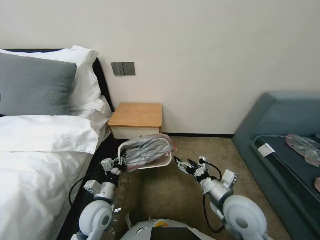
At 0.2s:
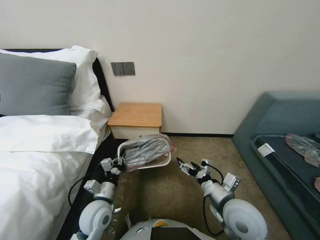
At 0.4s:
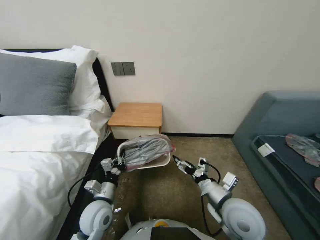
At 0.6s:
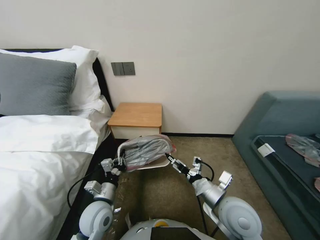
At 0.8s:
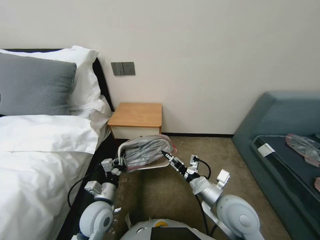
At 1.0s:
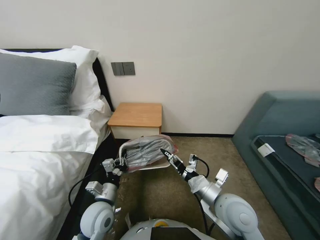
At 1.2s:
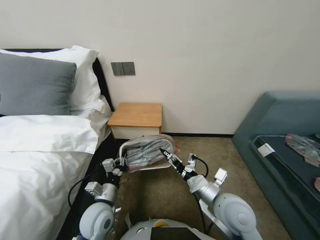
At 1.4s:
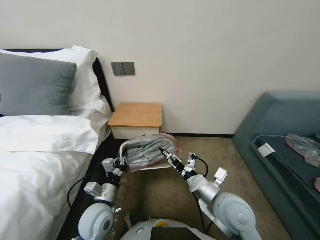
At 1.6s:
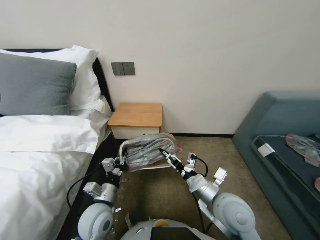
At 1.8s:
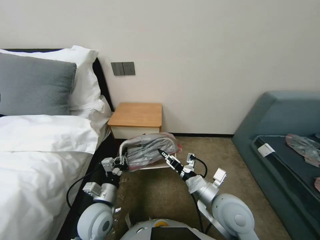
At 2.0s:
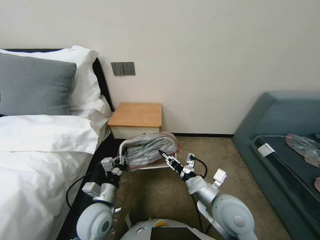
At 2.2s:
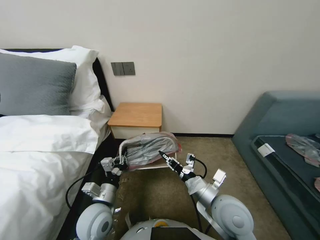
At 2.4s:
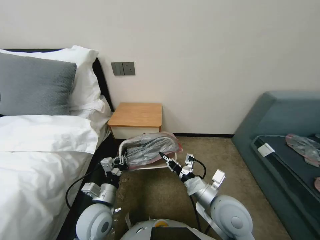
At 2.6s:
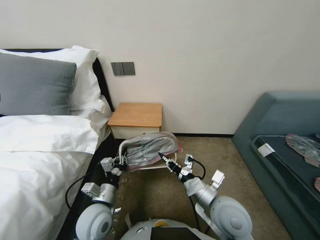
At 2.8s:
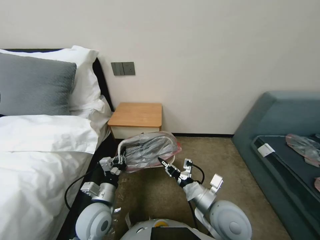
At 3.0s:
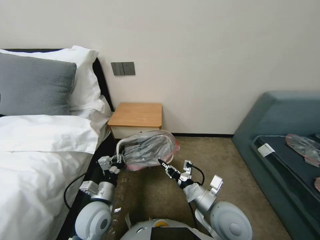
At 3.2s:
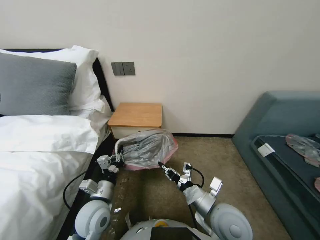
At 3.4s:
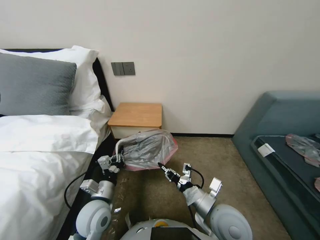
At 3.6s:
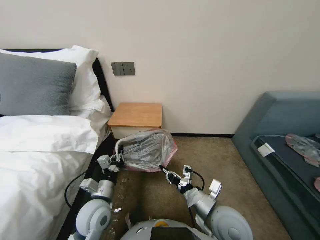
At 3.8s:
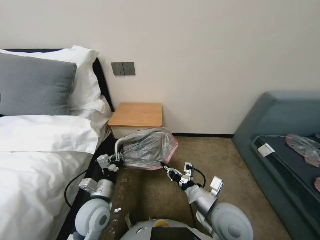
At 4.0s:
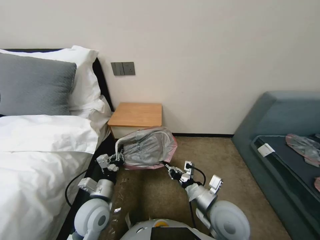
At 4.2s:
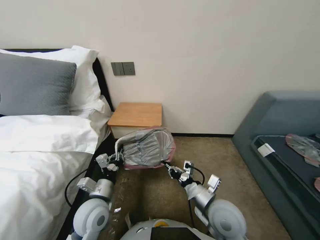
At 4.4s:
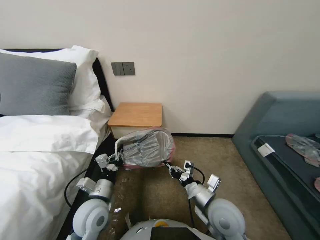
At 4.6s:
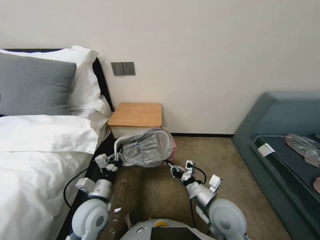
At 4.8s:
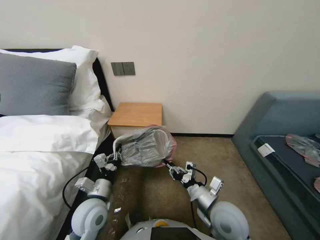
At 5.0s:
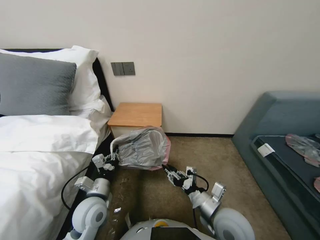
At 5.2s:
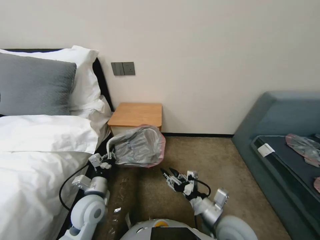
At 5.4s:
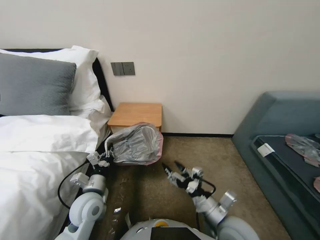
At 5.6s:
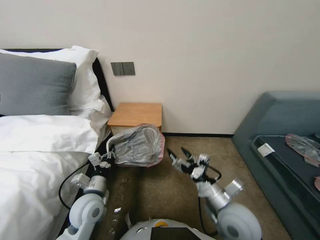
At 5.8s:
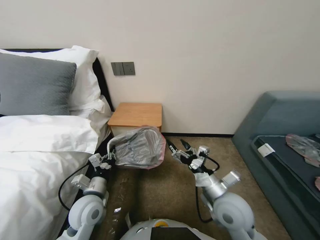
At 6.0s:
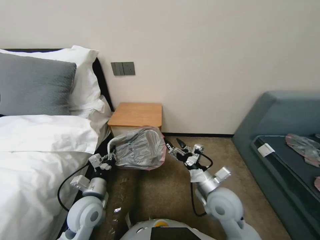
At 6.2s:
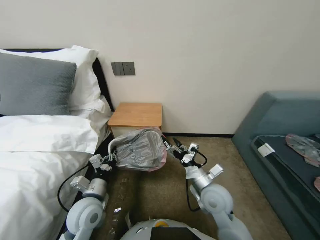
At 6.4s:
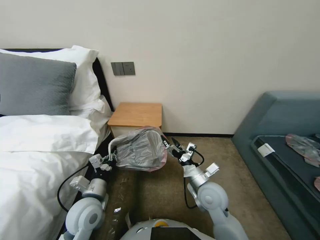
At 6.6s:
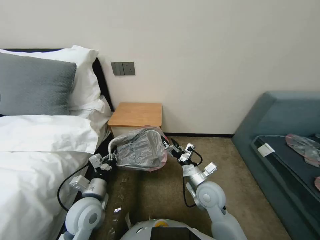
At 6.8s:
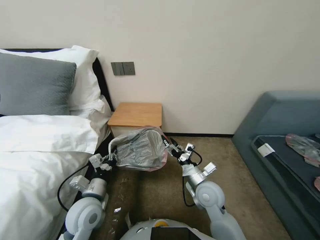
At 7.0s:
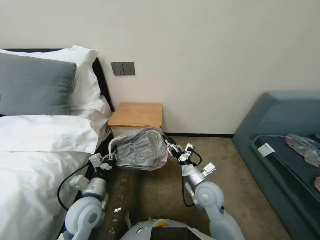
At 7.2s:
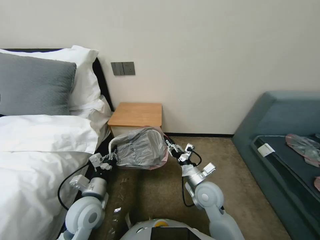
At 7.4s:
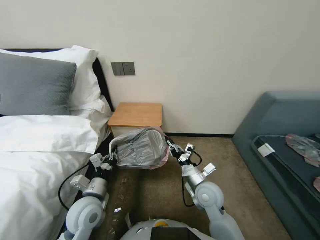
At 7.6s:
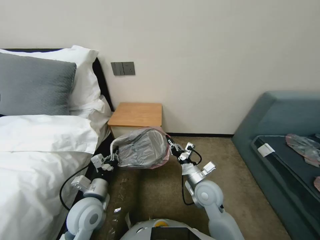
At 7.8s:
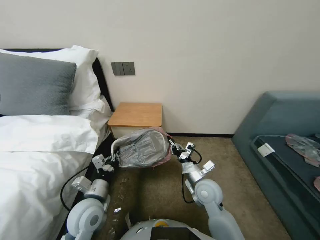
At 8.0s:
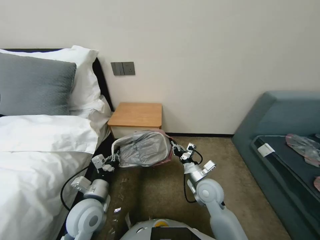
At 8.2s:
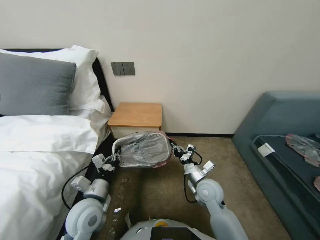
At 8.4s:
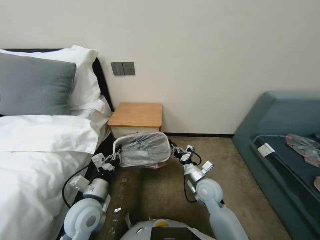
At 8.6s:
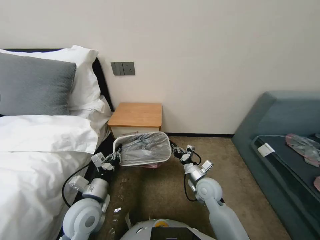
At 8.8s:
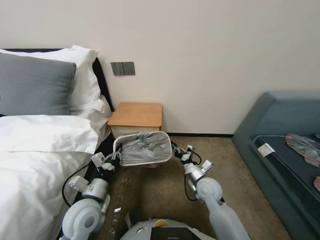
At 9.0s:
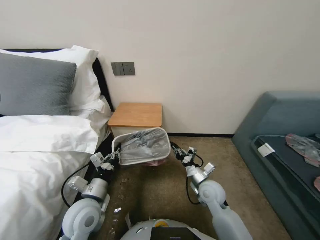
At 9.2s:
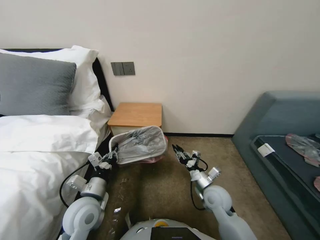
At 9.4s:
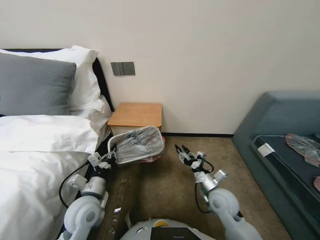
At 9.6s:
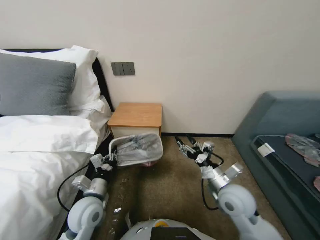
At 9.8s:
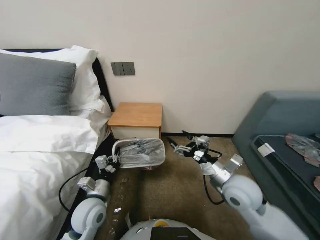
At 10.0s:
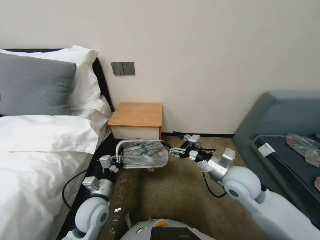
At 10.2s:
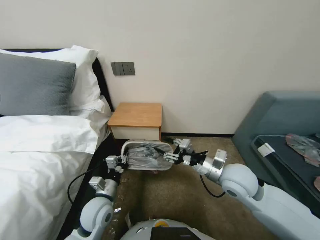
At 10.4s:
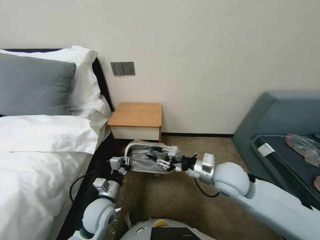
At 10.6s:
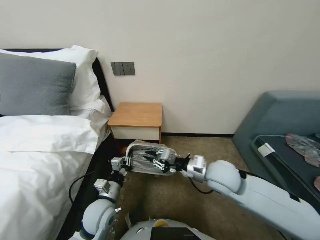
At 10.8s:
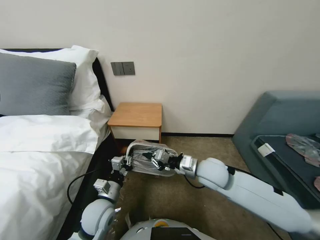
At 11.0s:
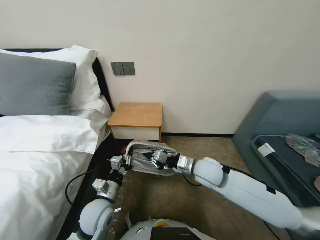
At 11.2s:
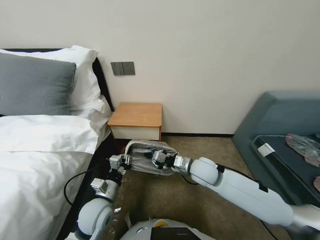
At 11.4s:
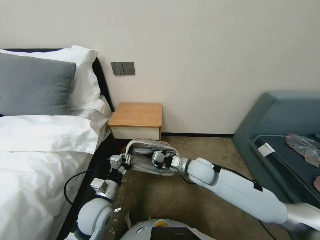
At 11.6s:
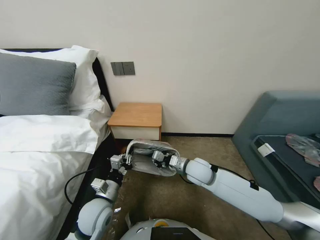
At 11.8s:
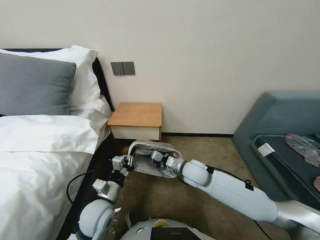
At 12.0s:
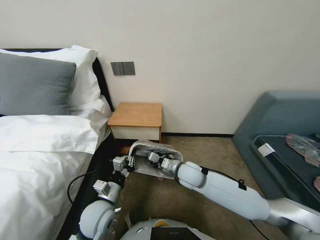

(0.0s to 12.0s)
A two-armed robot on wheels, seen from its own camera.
Task of the whole recording: Pick up the garbage bag from the table and place it over the trash can.
1.6s - 3.0s: The right gripper closes up.
3.0s - 4.4s: The grippers move only a little.
4.4s - 6.0s: The right gripper opens up.
6.0s - 7.6s: The right gripper moves roughly 5 cm, and closes up.
7.6s - 9.0s: The right gripper moves roughly 5 cm.
9.0s - 10.4s: The right gripper moves upward, approximately 15 cm, and opens up. Meanwhile the left gripper goes approximately 5 cm downward.
10.4s - 12.0s: The right gripper moves to the left, downward and forward, about 15 cm, and closes.

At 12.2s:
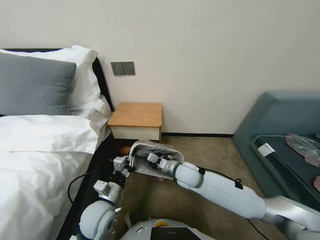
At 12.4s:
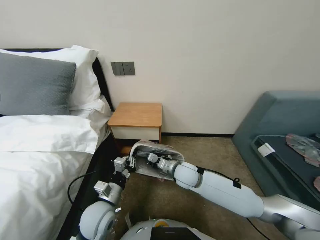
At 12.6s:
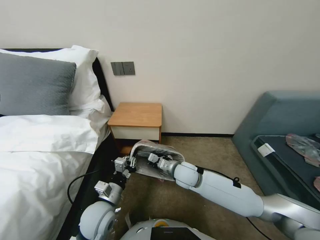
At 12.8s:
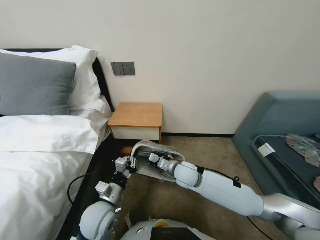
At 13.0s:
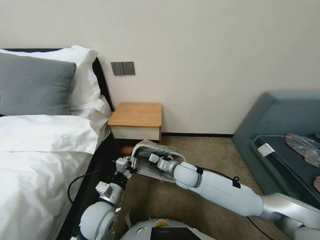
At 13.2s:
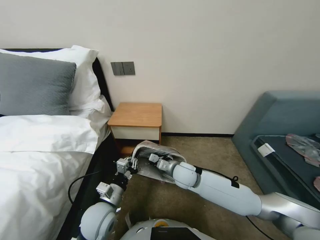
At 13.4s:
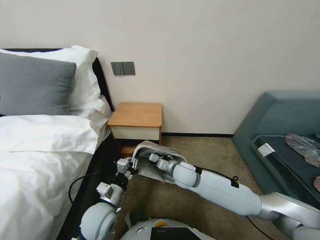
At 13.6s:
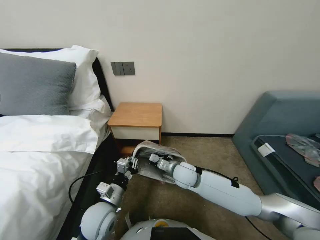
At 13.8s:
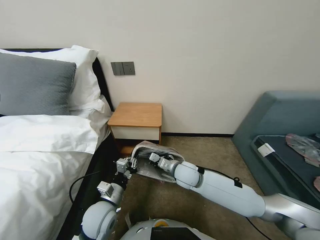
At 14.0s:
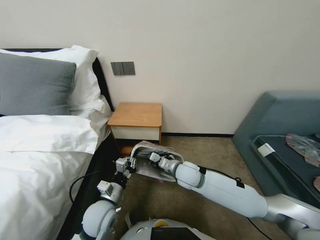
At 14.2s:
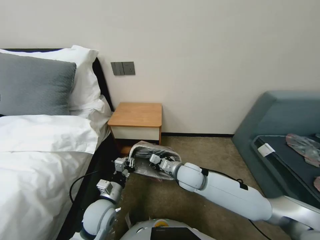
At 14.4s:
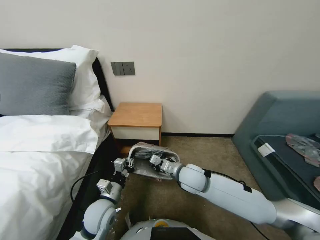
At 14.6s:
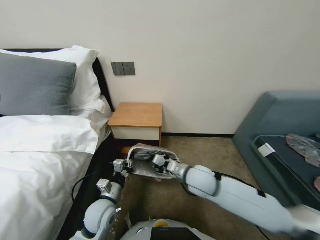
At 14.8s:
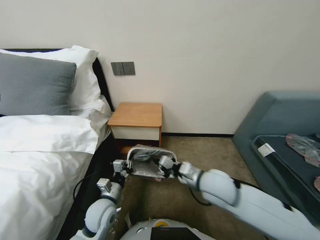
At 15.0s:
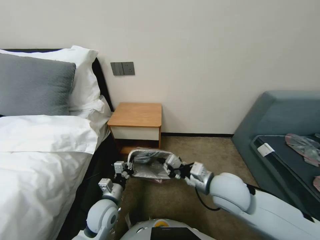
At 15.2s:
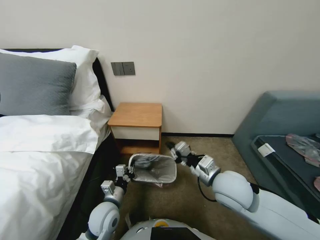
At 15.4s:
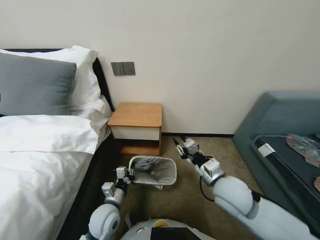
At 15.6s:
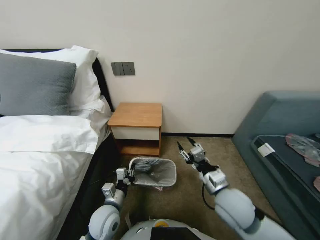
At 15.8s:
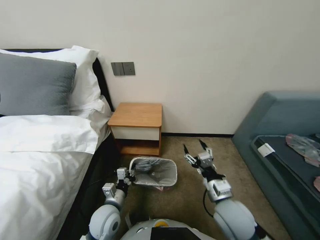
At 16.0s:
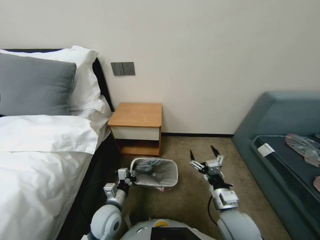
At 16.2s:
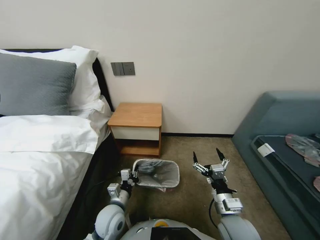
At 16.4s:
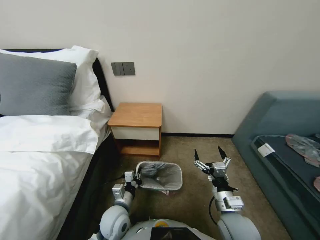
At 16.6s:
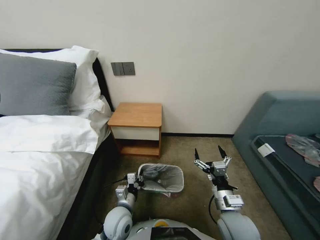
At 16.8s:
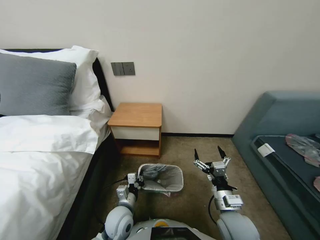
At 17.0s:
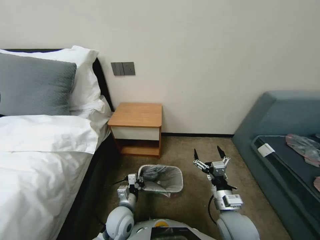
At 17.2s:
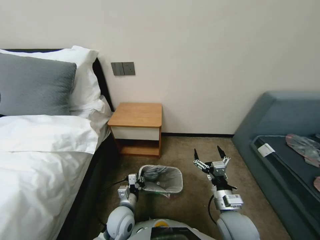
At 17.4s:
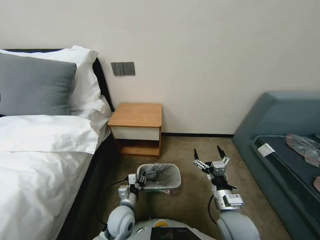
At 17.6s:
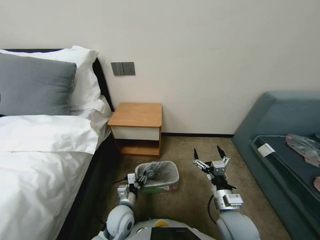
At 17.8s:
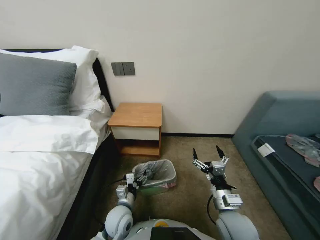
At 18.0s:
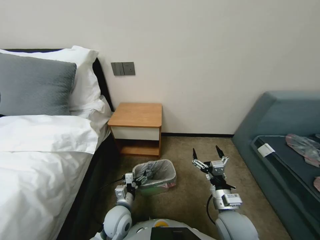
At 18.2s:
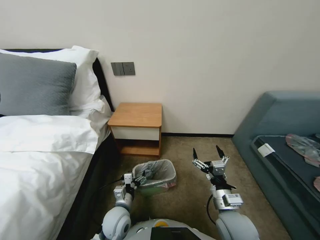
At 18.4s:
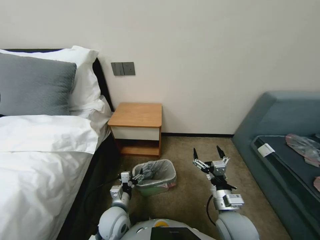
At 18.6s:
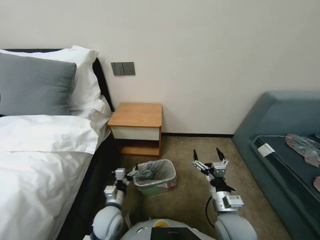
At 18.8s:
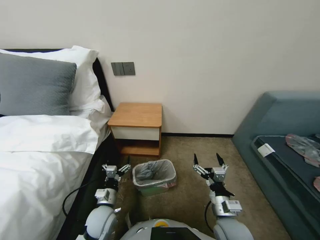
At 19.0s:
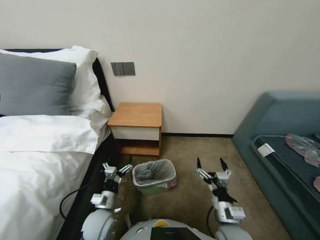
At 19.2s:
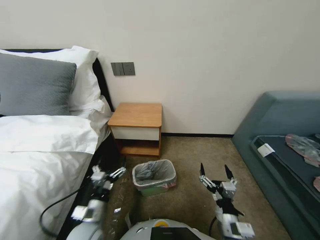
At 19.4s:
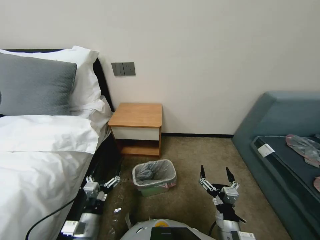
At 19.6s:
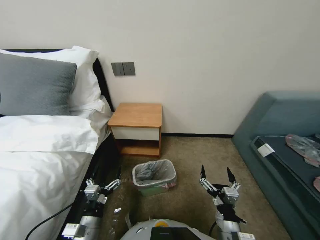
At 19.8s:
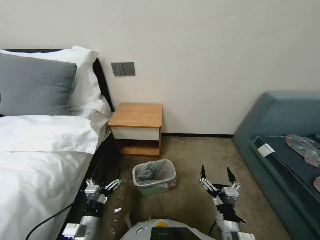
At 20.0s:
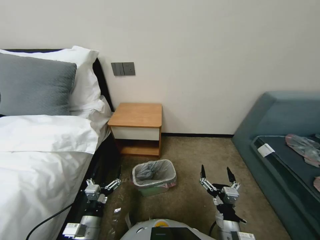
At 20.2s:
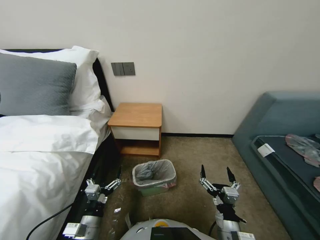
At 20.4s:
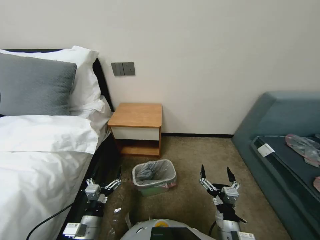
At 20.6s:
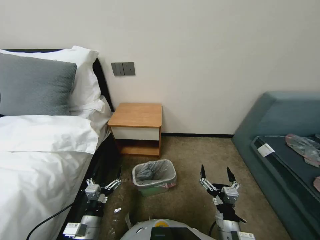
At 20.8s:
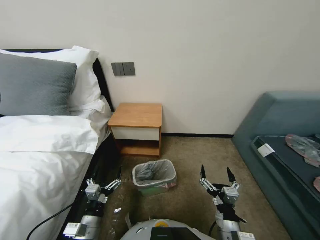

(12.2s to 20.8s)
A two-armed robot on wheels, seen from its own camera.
Task of the whole recording: Pick up the garbage bag from the table and place it over the trash can.
12.2s - 13.6s: The grippers stay close to where they were, moving slightly.
13.6s - 15.0s: The right gripper heads upward, backward and to the right, covering roughly 15 cm.
15.0s - 16.6s: The right gripper is displaced downward, backward and to the right by some 15 cm, and opens up; the left gripper ends up approximately 5 cm from where it was.
16.6s - 18.0s: The left gripper opens its fingers.
18.0s - 19.4s: The left gripper goes some 15 cm to the left, backward and upward. The right gripper goes about 10 cm backward.
19.4s - 20.8s: The grippers stay close to where they were, moving slightly.
